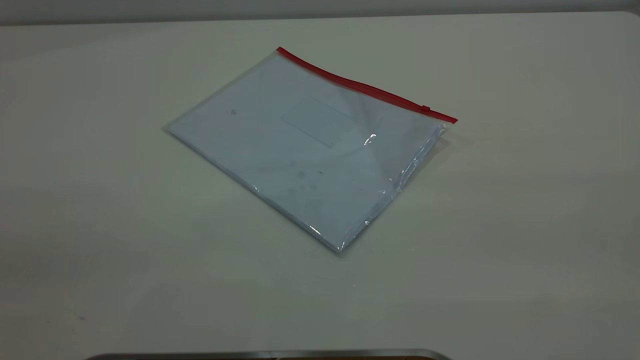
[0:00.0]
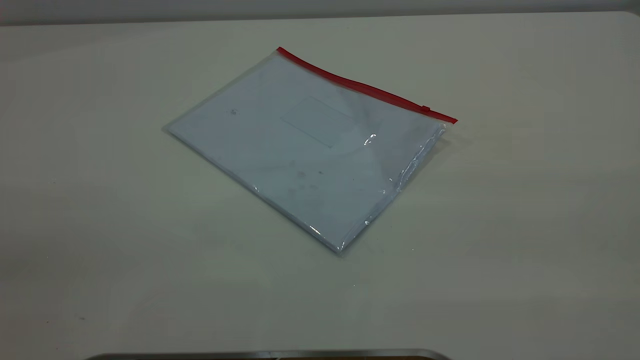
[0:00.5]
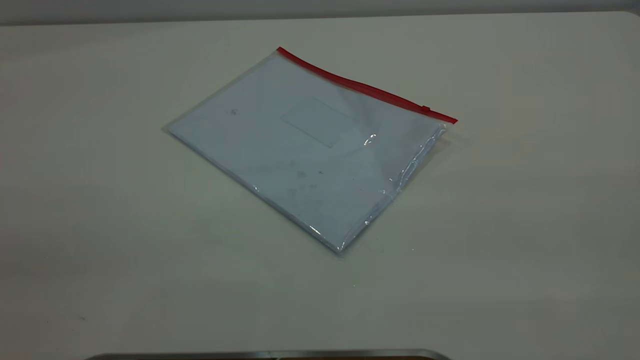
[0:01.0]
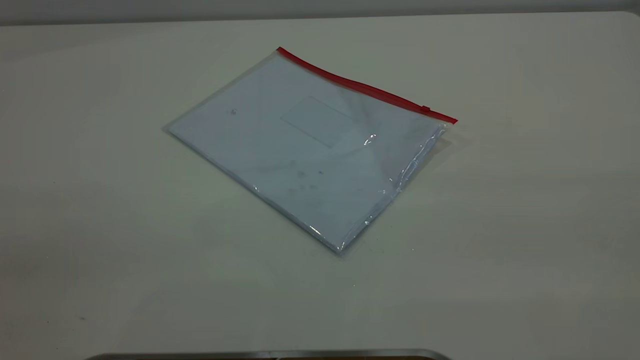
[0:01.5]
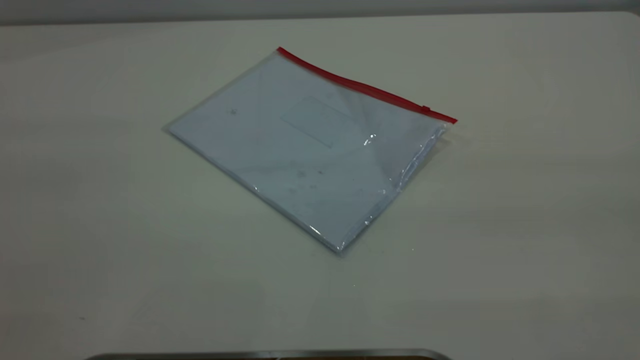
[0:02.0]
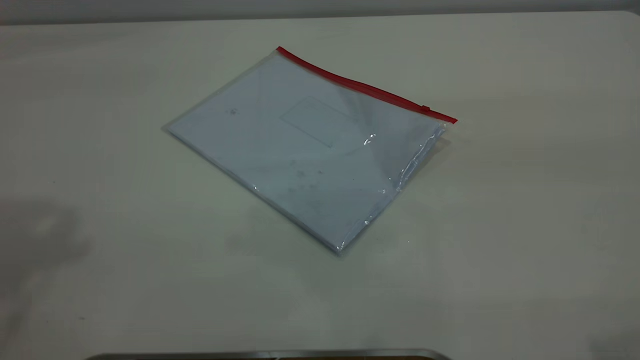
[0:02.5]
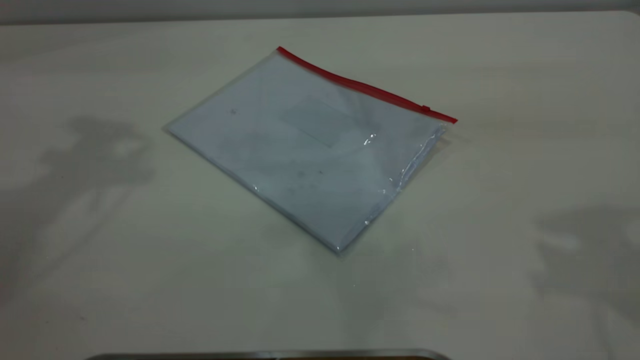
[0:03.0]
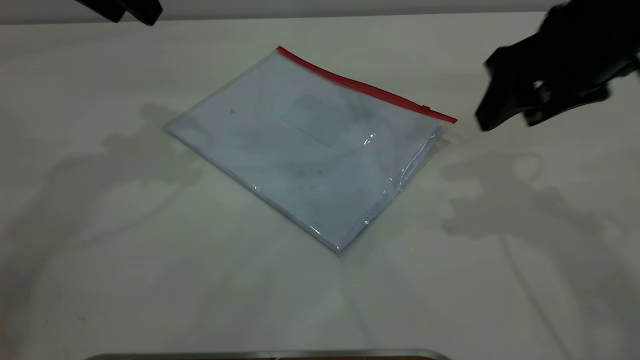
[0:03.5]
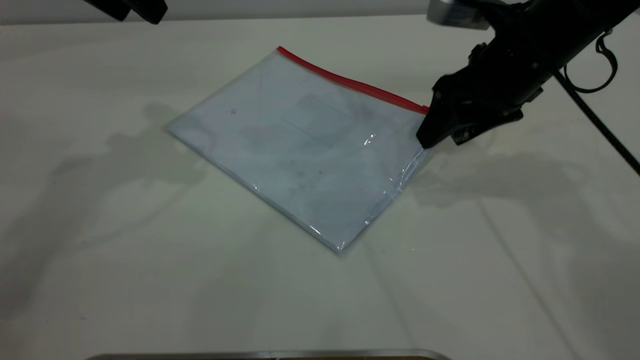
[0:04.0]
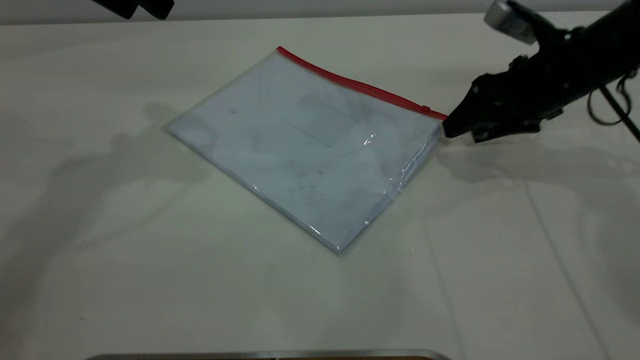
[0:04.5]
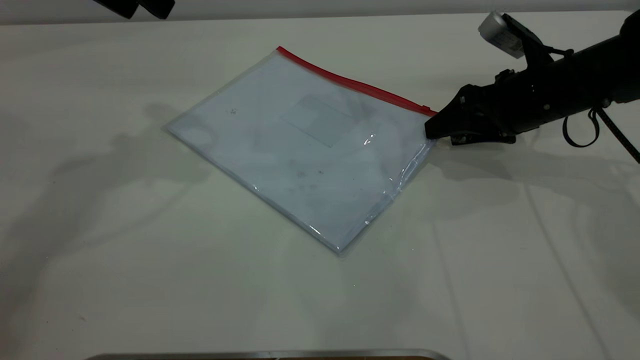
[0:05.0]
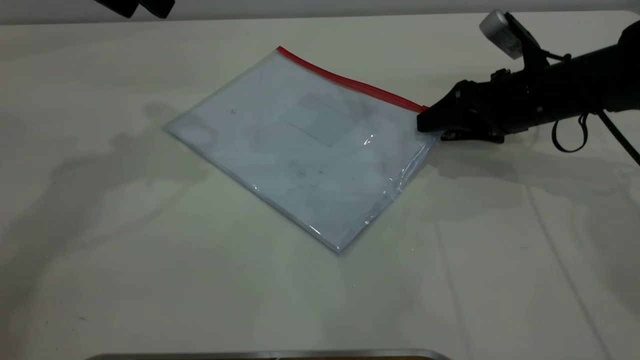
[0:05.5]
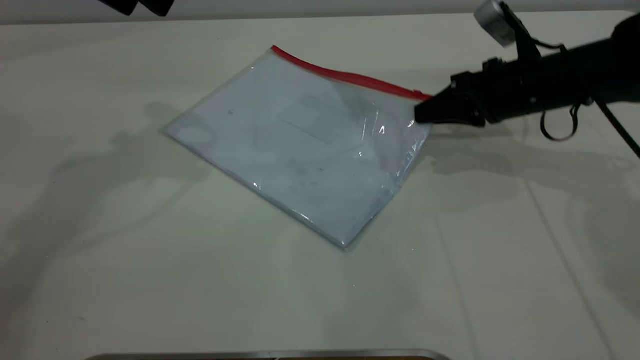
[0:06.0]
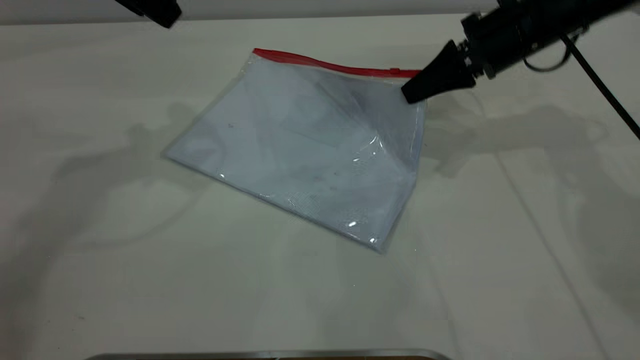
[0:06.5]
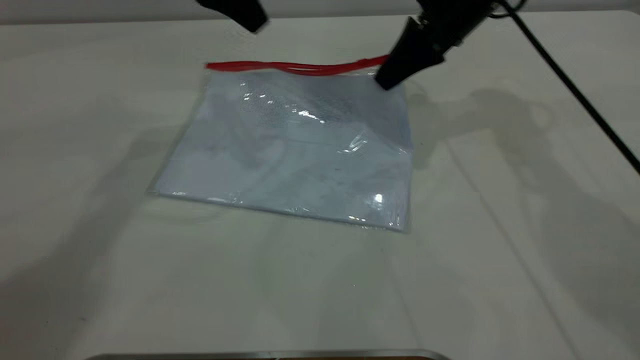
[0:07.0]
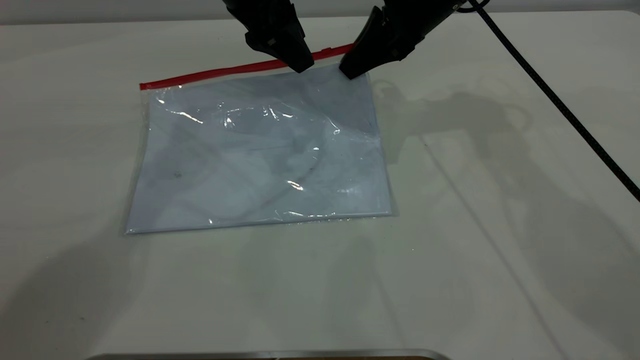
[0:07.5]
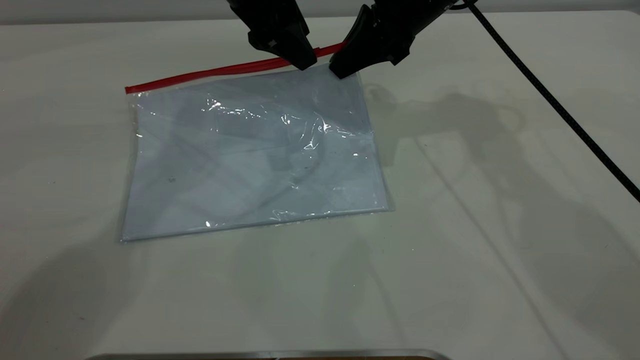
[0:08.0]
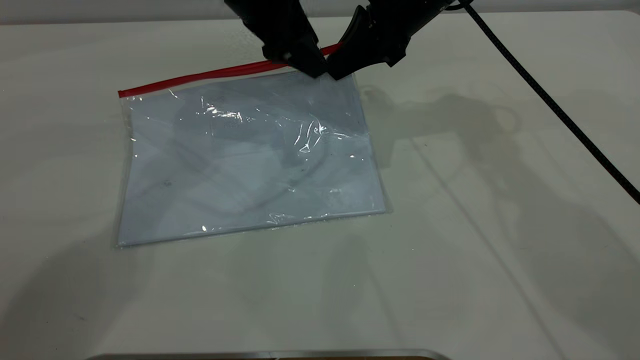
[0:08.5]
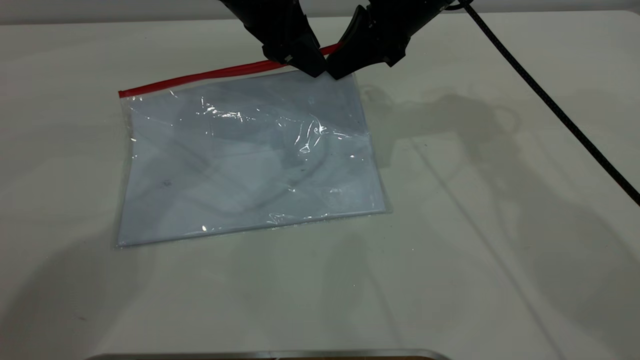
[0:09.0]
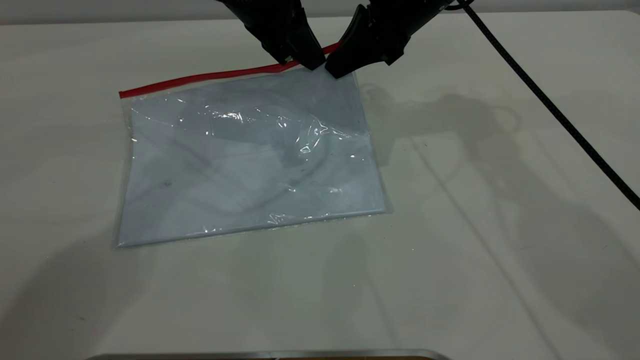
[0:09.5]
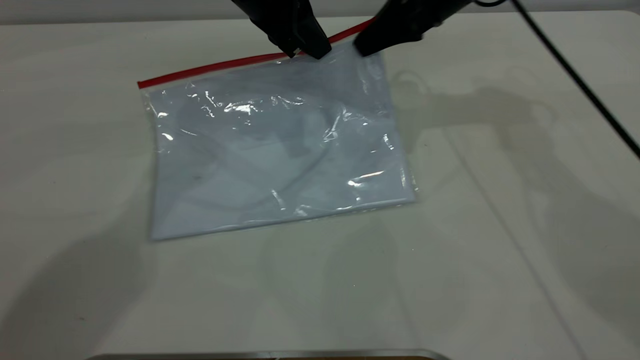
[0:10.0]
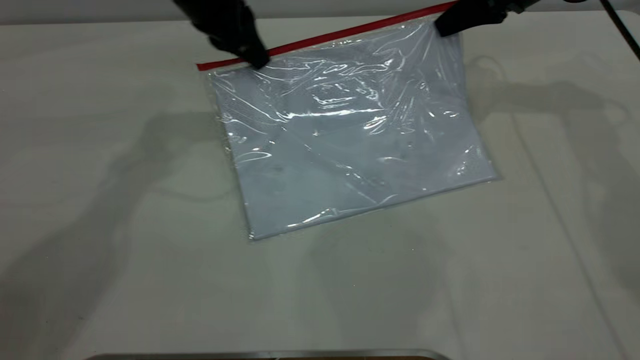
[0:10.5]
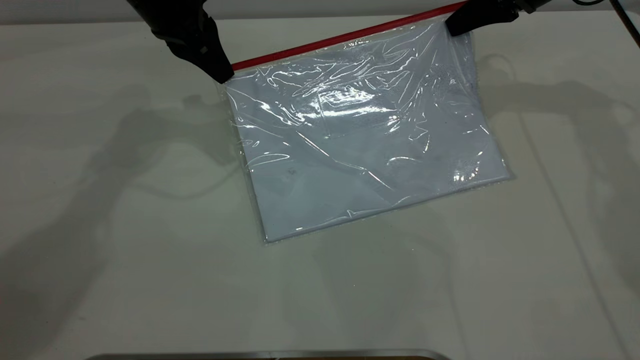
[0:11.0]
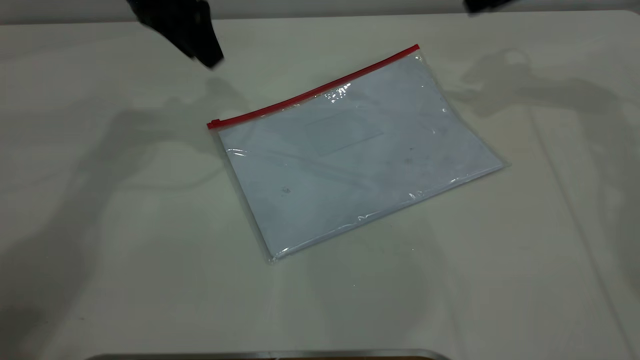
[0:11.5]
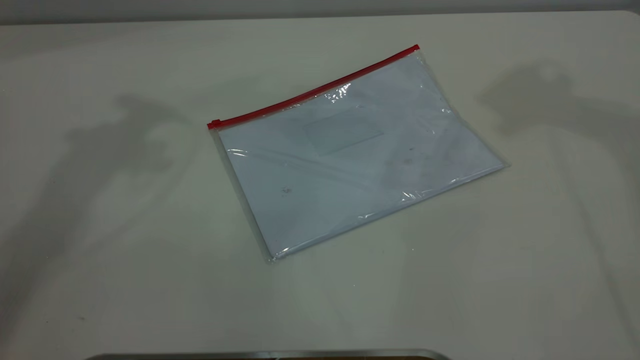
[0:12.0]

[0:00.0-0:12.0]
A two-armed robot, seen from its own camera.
Step, 0:00.0 to 0:06.5: Pick up the transparent plastic bag with the right gripper.
Step, 0:07.0 to 0:11.0: Pulling up the zipper on the transparent plastic bag with the left gripper to close it.
0:02.0 to 0:04.0: The grippers both shift forward and downward by approximately 40 cm.
0:04.0 to 0:06.0: The right gripper heads downward, covering about 5 cm, and closes.
0:06.0 to 0:08.0: The left gripper travels to the right and downward by approximately 15 cm, while the right gripper heads to the left, upward and forward, covering roughly 15 cm.
0:08.0 to 0:10.0: The right gripper travels to the right by approximately 5 cm; the left gripper closes its fingers.
0:10.0 to 0:12.0: The right gripper travels upward by approximately 35 cm, and opens its fingers. Meanwhile the left gripper is displaced upward and to the left by approximately 30 cm, and opens up.

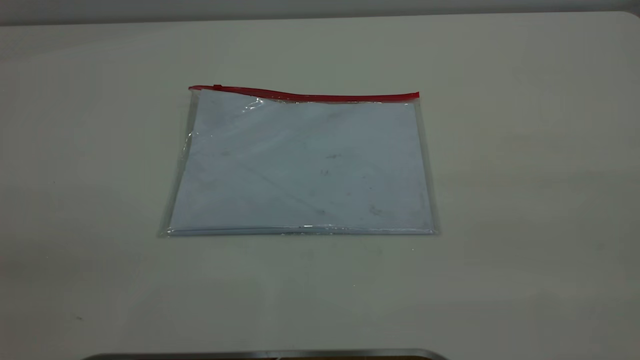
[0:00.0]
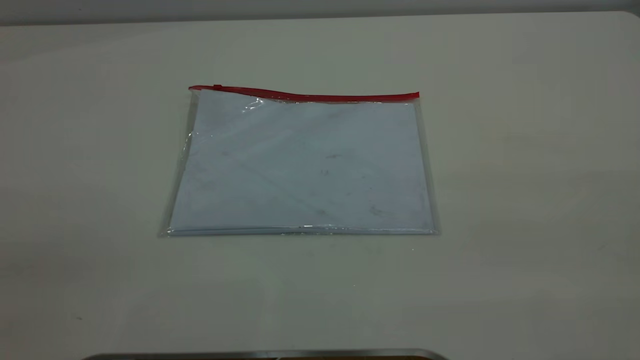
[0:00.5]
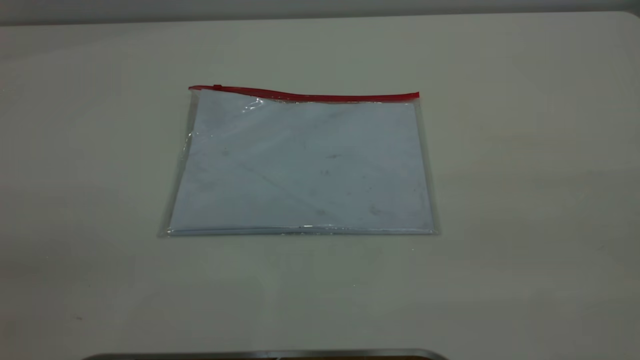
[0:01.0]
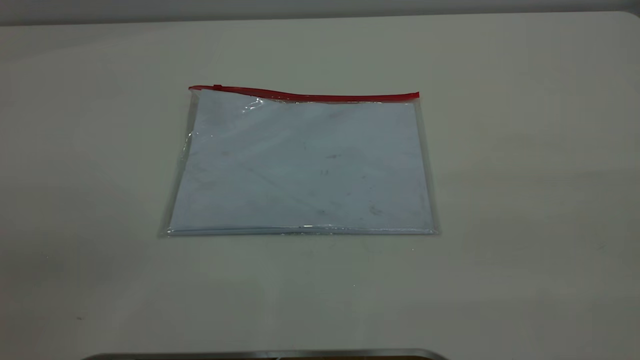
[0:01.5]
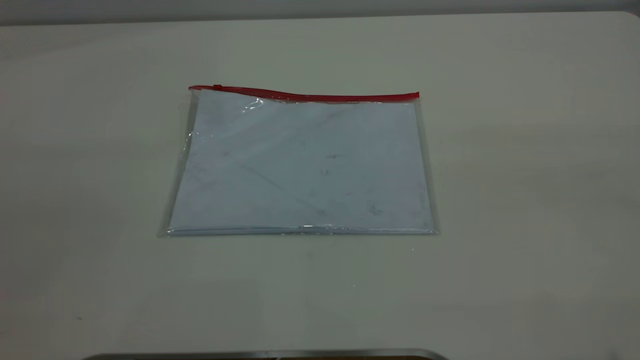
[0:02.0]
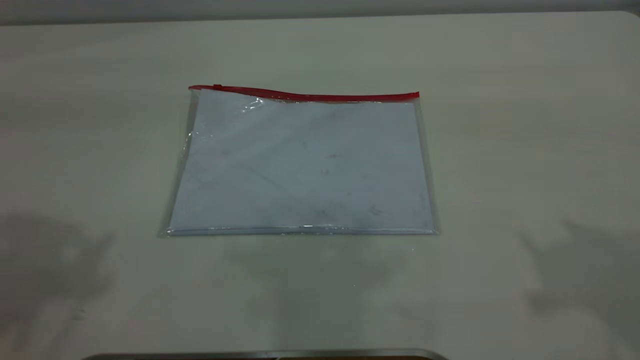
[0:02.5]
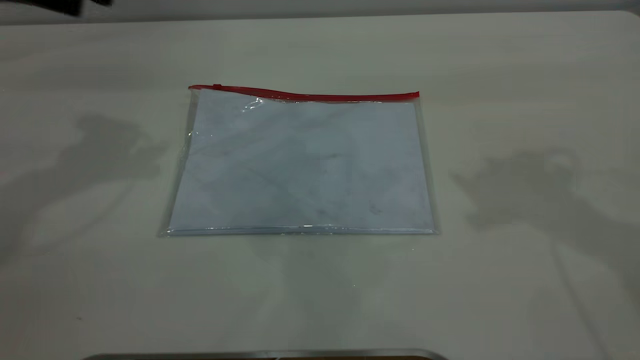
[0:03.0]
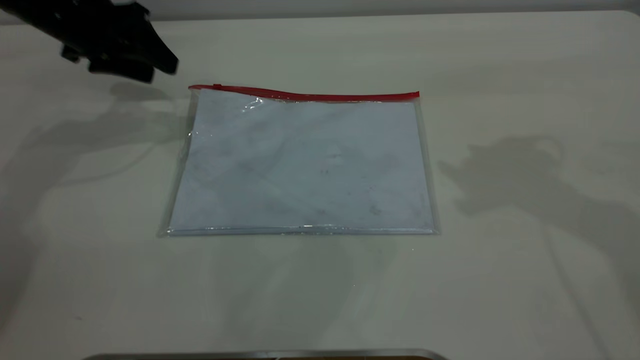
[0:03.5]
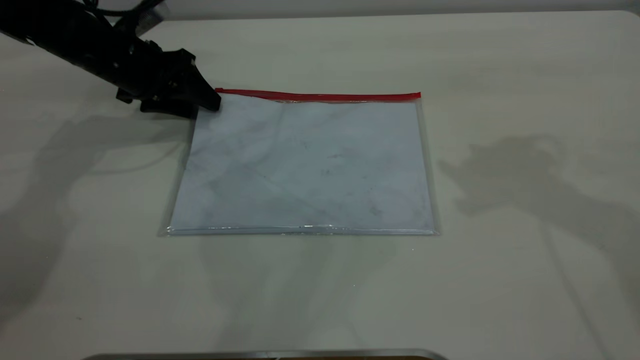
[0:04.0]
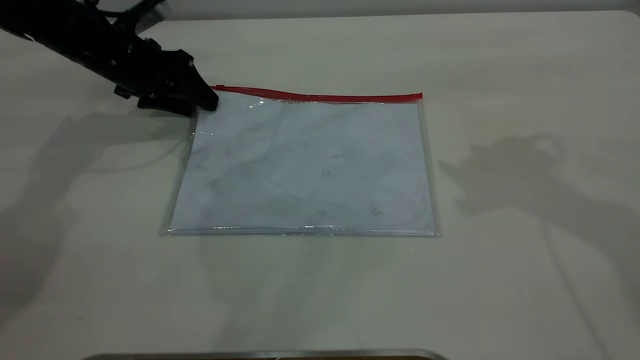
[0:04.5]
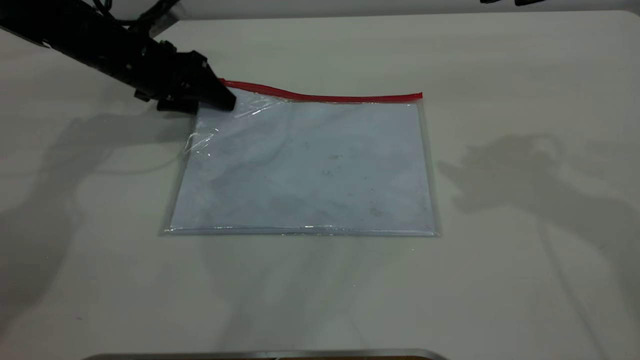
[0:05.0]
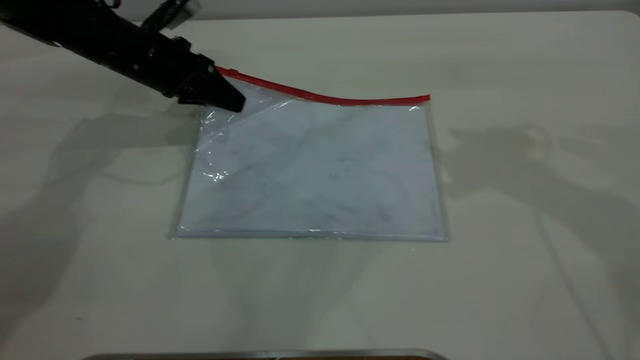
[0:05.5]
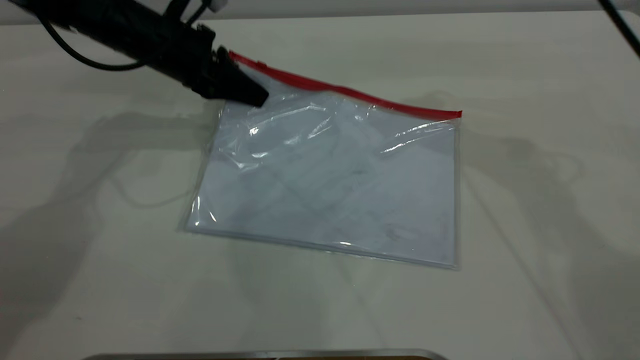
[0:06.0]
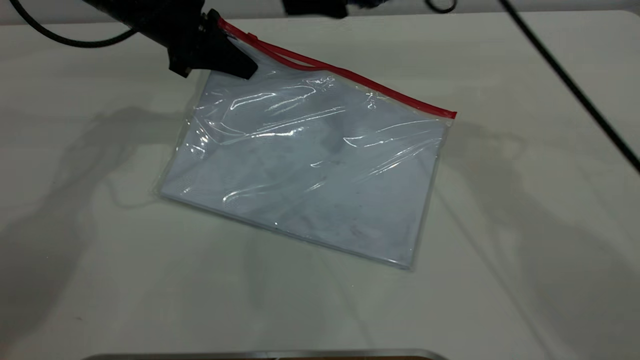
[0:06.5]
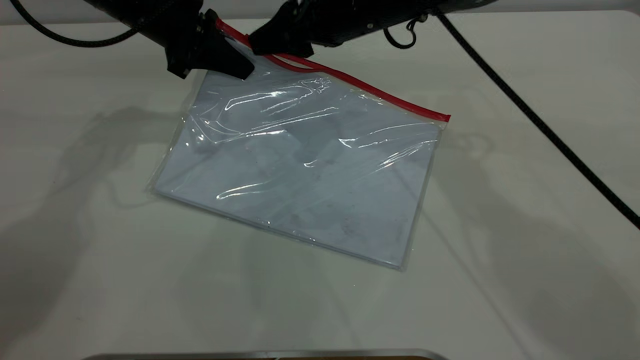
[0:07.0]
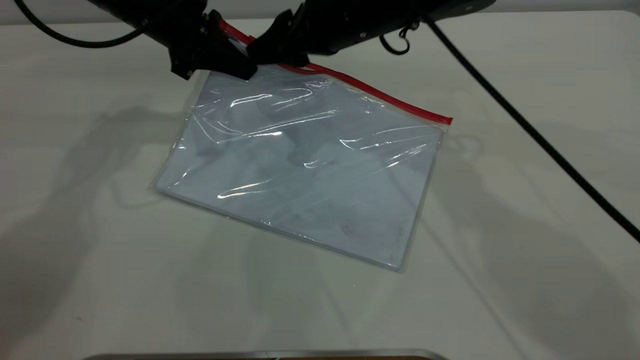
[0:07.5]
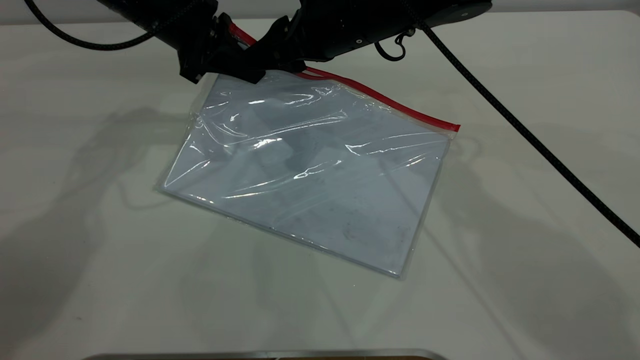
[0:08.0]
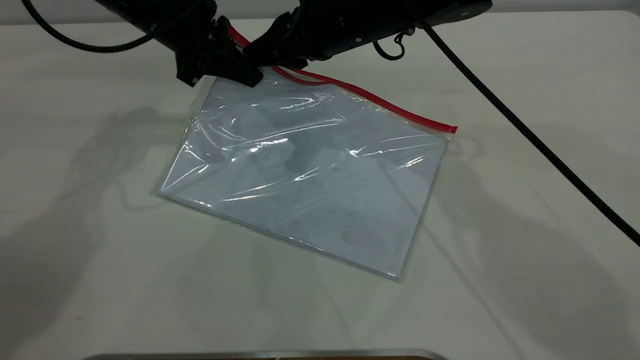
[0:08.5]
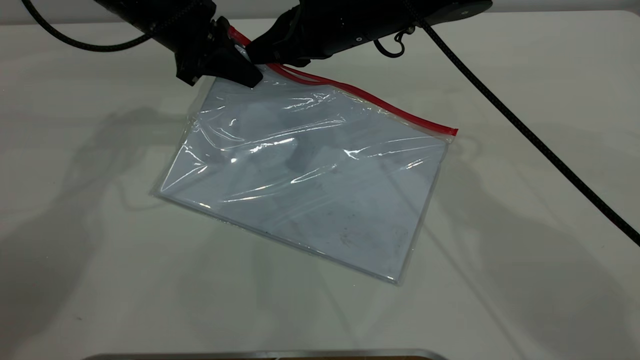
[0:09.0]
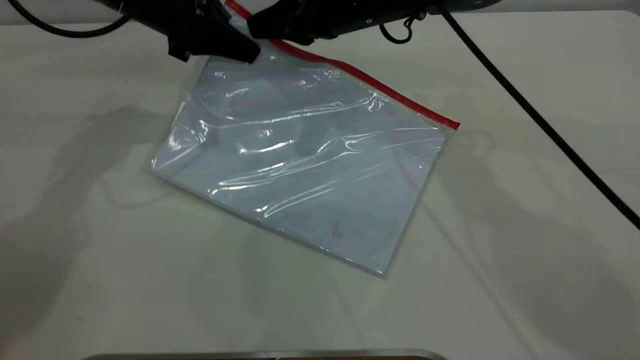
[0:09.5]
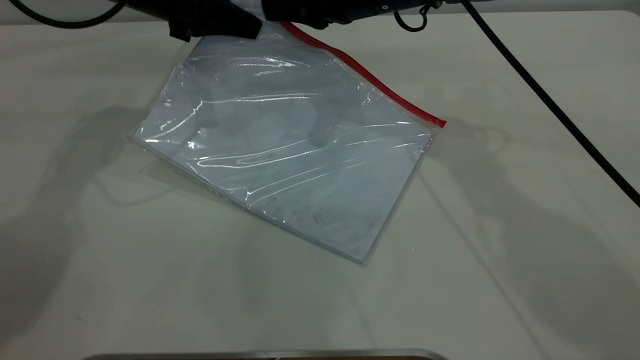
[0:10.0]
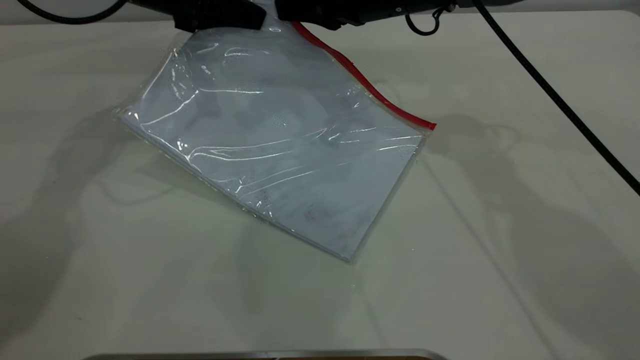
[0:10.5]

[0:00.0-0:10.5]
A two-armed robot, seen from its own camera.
Step, 0:00.0 to 0:06.0: Pick up the transparent plastic bag with the left gripper.
0:02.0 to 0:04.0: The left gripper shifts approximately 50 cm forward and downward.
0:04.0 to 0:06.5: The right gripper shifts about 20 cm to the left, forward and downward. The left gripper moves upward and to the right, about 10 cm, and closes up.
0:06.5 to 0:08.5: The right gripper ends up some 5 cm from where it was, and closes up.
0:08.5 to 0:10.5: The right gripper travels to the right by roughly 5 cm.
